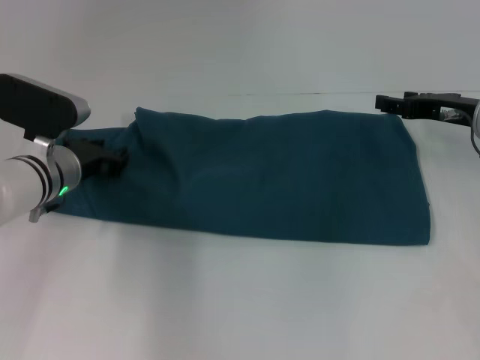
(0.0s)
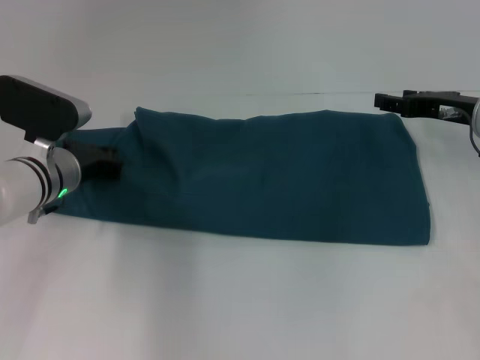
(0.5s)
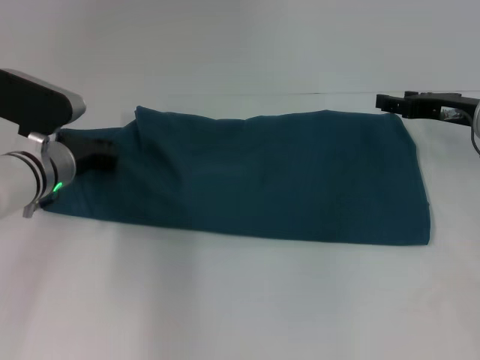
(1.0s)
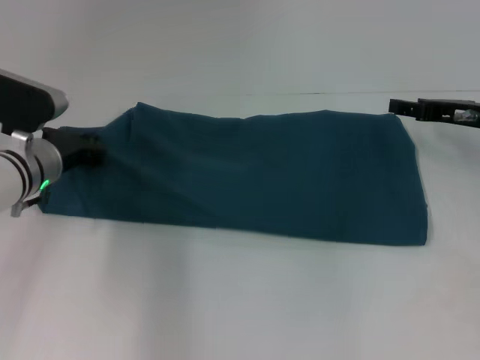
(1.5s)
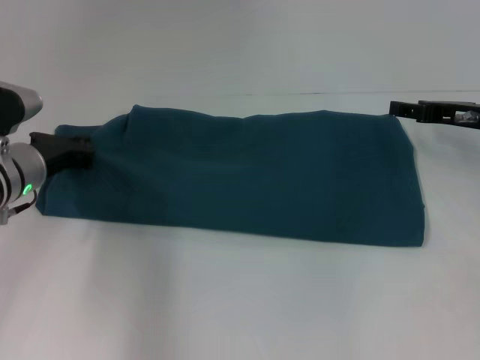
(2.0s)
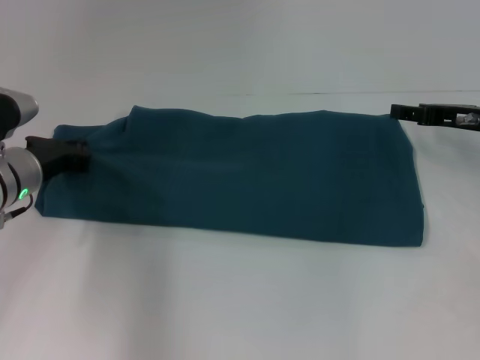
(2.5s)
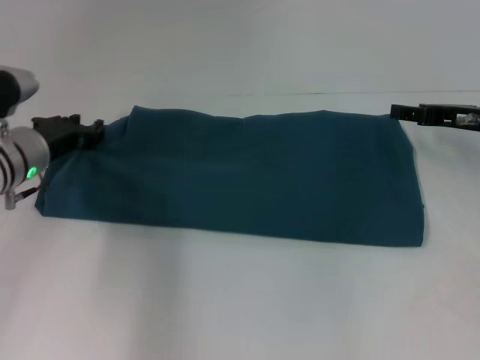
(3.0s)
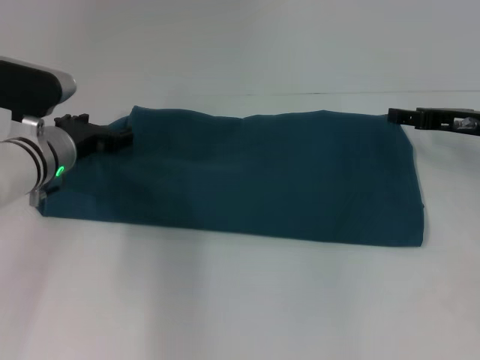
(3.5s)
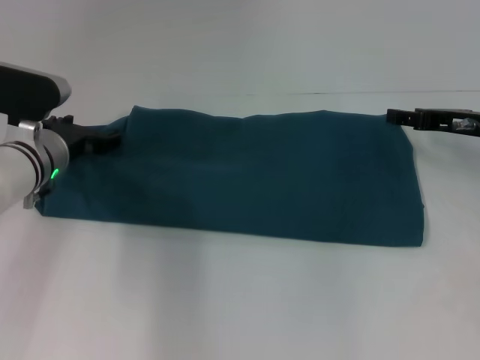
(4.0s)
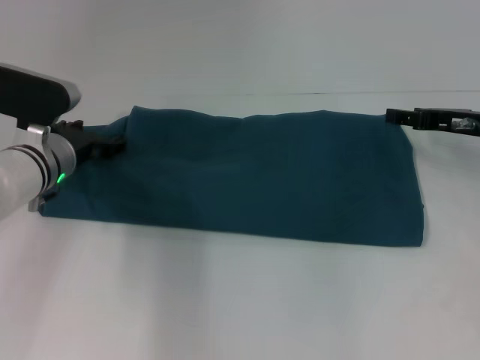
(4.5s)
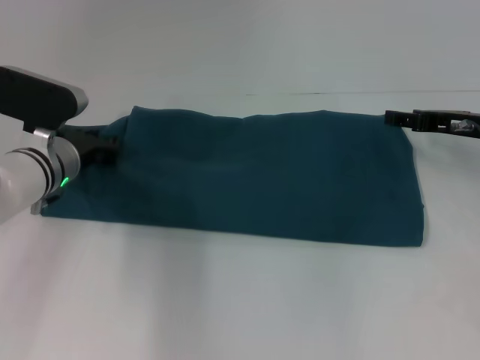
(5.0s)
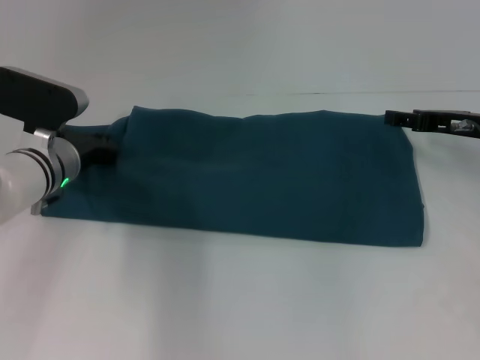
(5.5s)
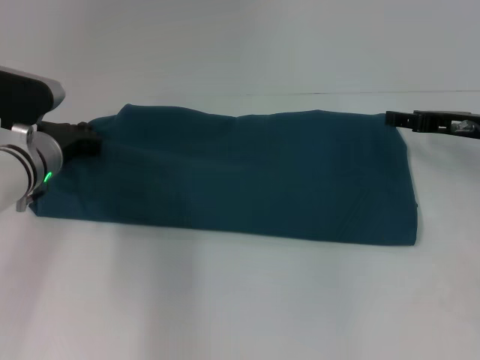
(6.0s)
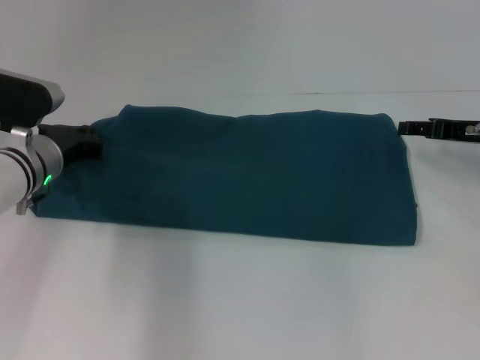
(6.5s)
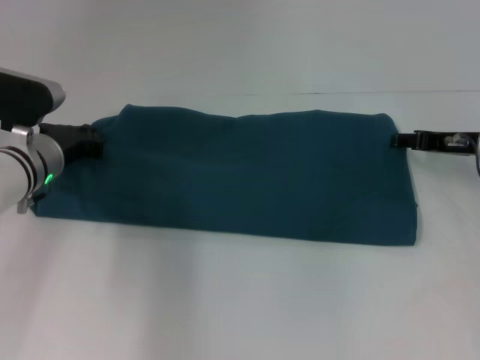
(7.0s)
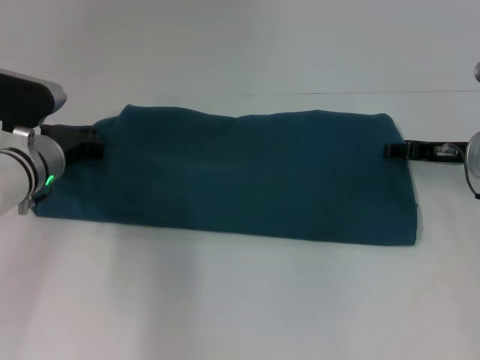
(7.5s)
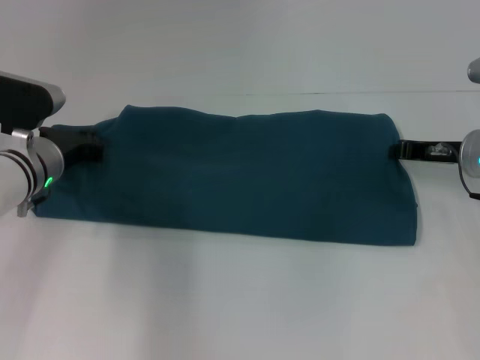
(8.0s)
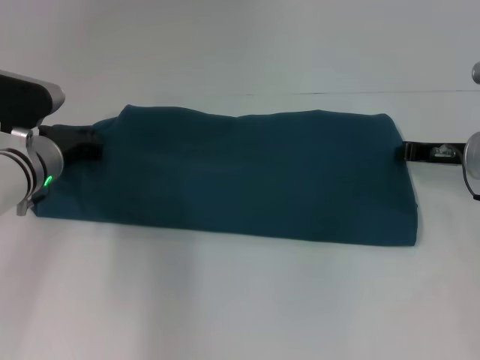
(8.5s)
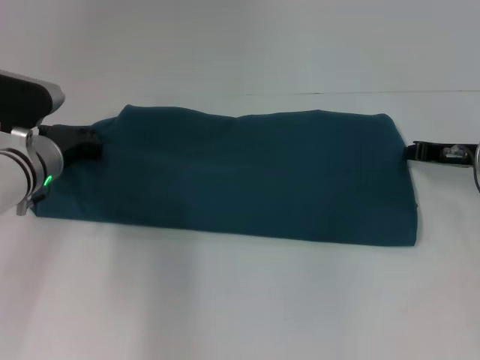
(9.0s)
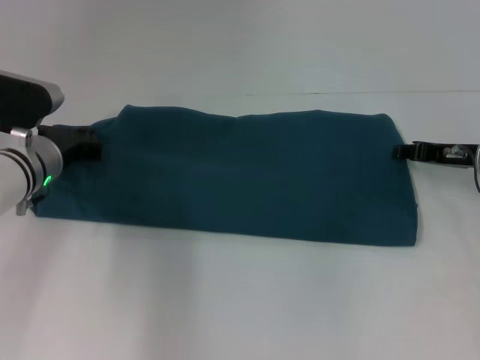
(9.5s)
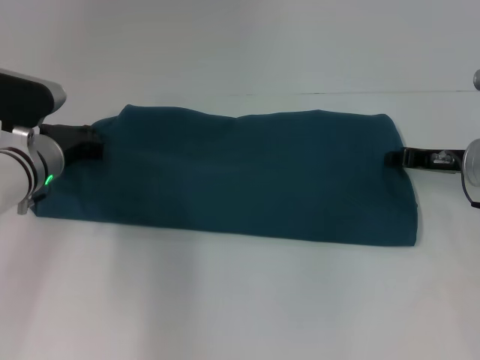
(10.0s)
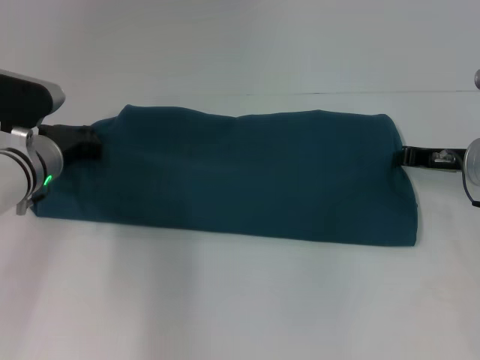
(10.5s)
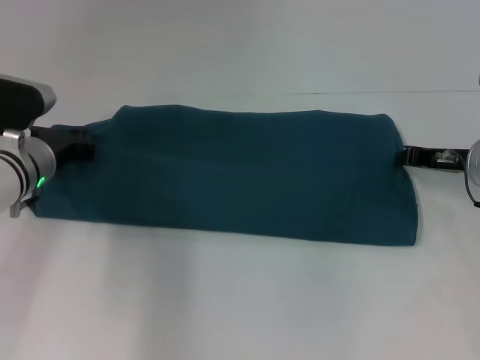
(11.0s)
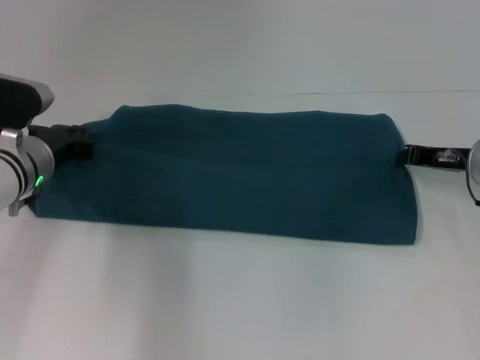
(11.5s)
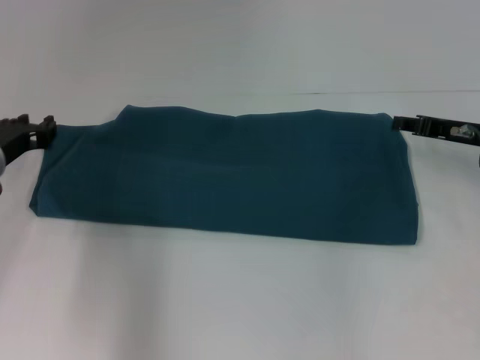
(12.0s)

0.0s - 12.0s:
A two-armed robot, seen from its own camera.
0.0s - 2.0s: The left gripper closes up.
2.0s - 4.0s: The left gripper opens its fingers.
4.0s - 6.0s: The left gripper closes.
6.0s - 8.0s: The right gripper closes its fingers.
8.0s - 10.0s: There are only small adjustments of the grippers.
10.0s - 12.0s: The left gripper moves approximately 5 cm.

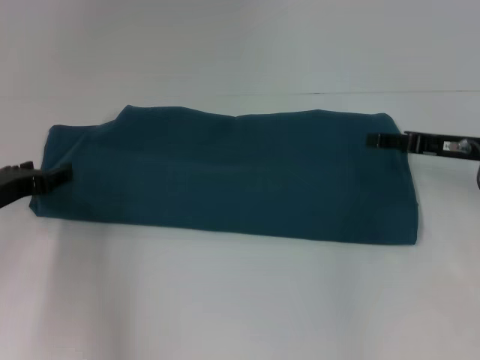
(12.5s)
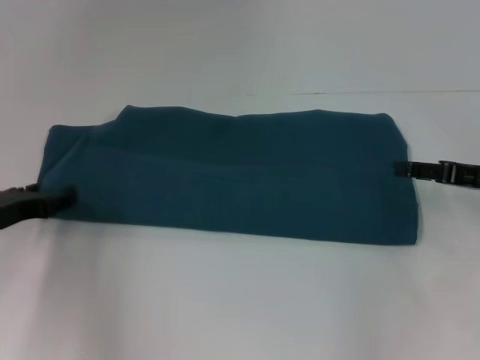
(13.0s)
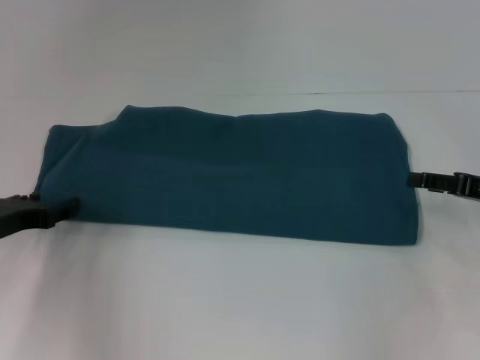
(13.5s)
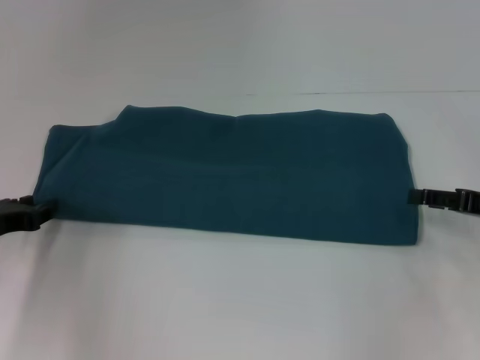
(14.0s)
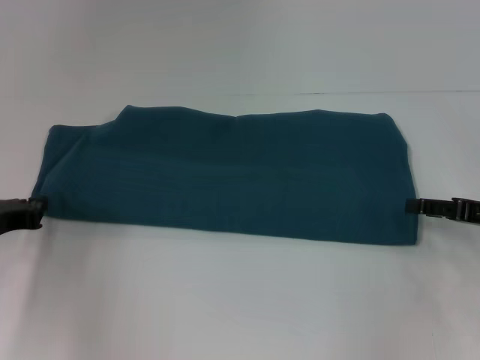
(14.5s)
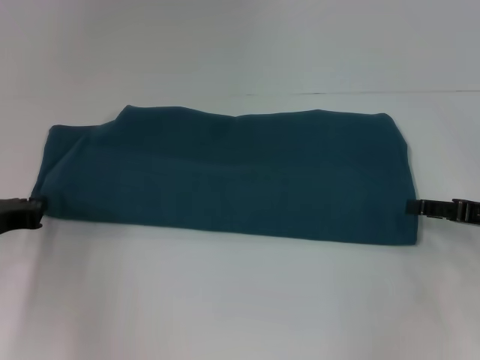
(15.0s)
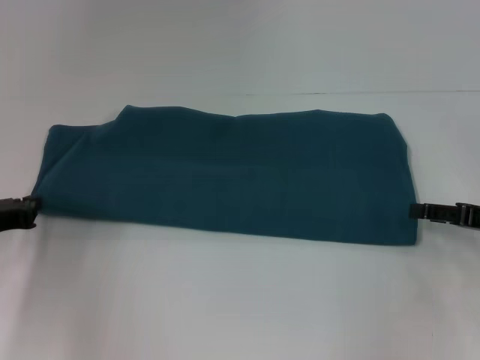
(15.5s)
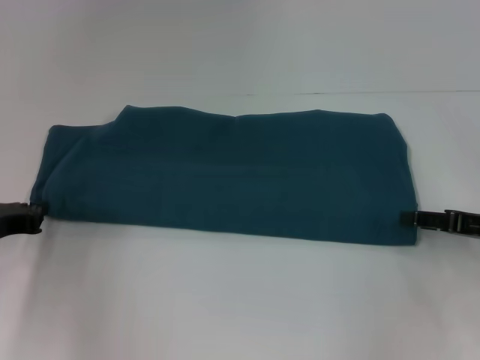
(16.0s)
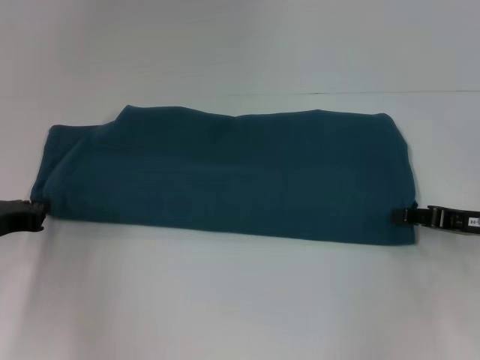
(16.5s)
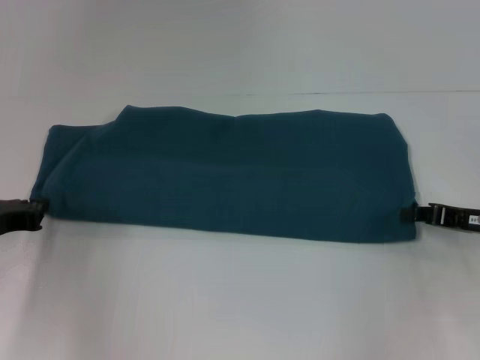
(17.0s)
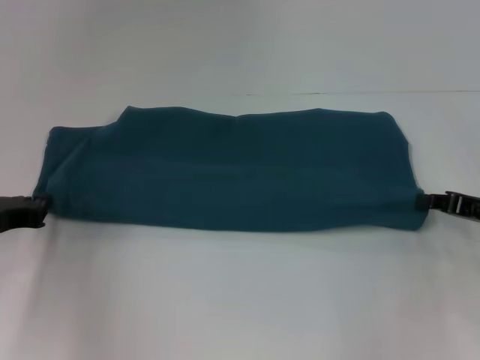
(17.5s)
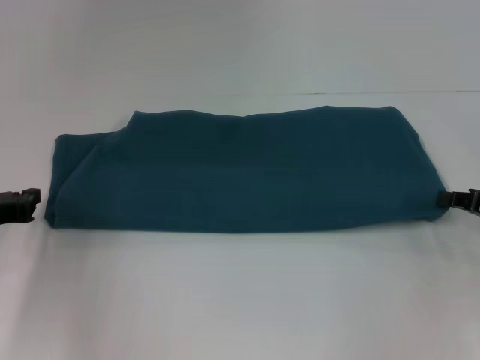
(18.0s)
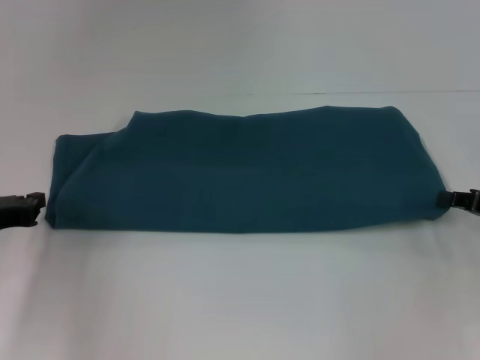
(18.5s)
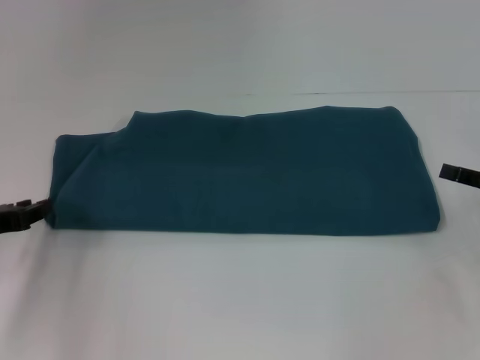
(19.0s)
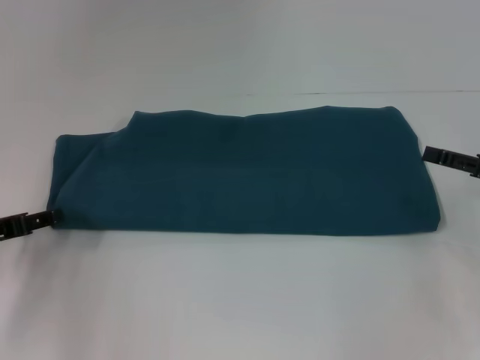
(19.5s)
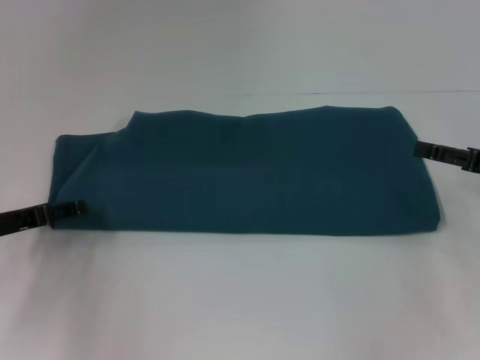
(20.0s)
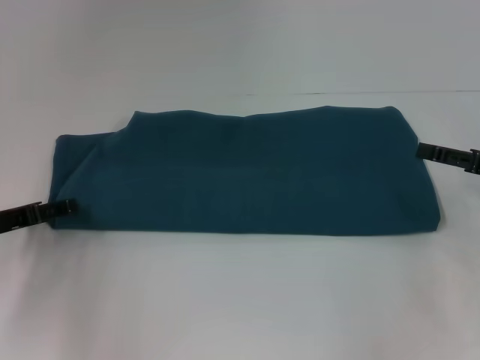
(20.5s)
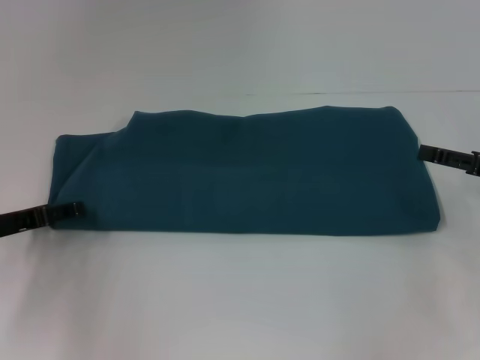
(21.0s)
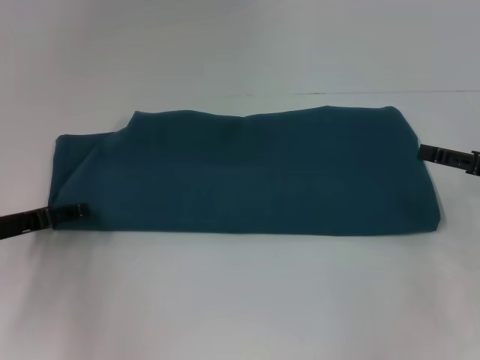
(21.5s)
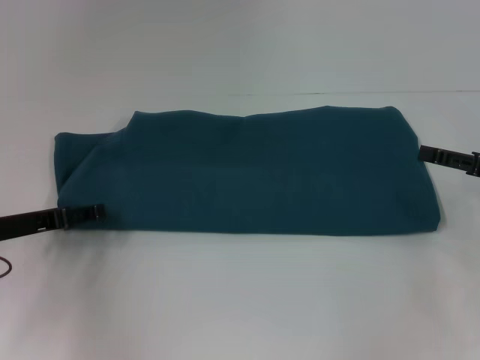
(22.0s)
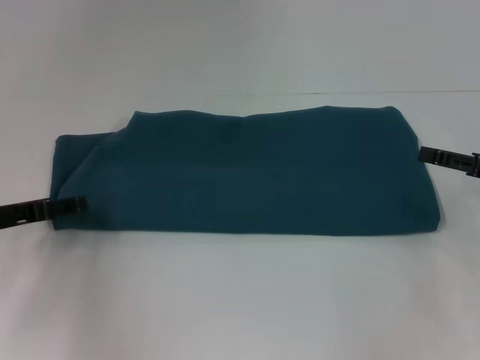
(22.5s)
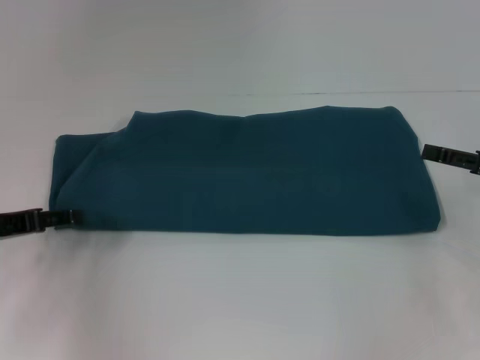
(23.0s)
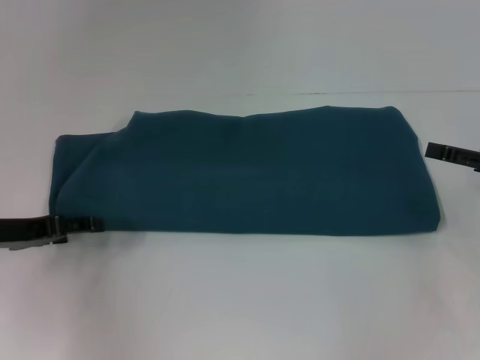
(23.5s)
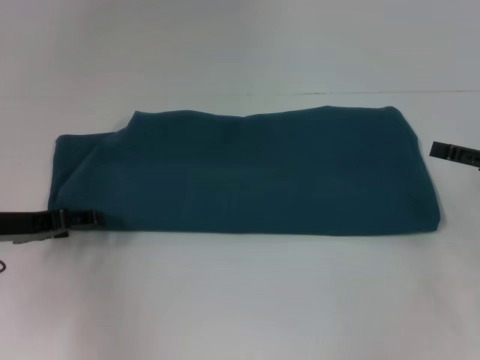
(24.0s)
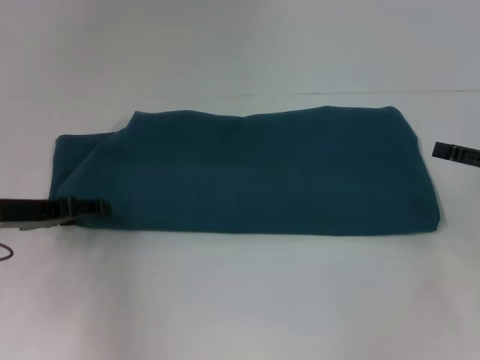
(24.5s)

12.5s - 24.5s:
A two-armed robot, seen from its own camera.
12.5s - 14.5s: The left gripper closes up. The right gripper moves backward and to the right, roughly 10 cm.
14.5s - 16.5s: The grippers stay close to where they were, moving slightly.
16.5s - 18.5s: The right gripper closes up.
18.5s - 20.5s: The left gripper opens its fingers; the right gripper opens.
20.5s - 24.5s: The grippers stay close to where they were, moving slightly.

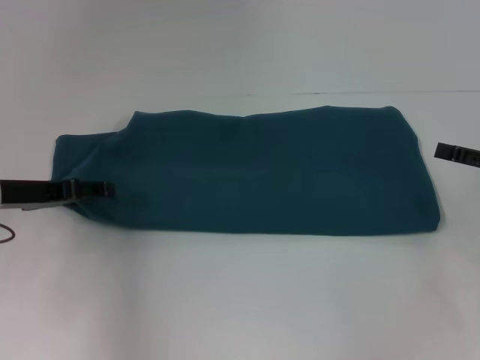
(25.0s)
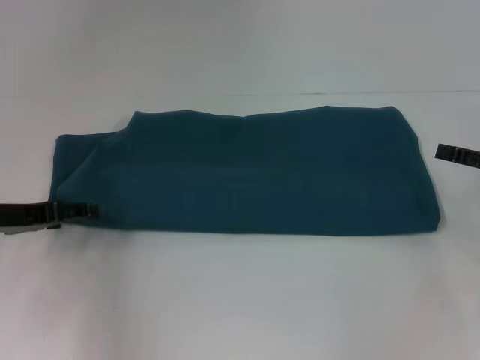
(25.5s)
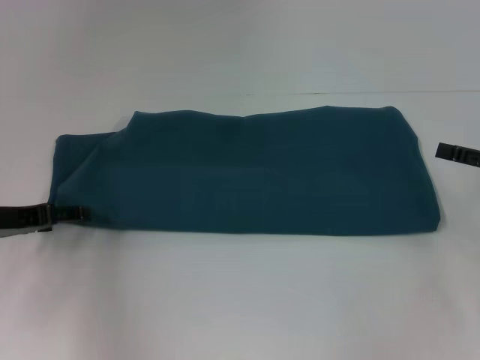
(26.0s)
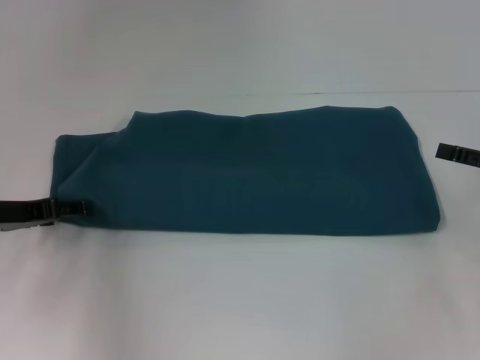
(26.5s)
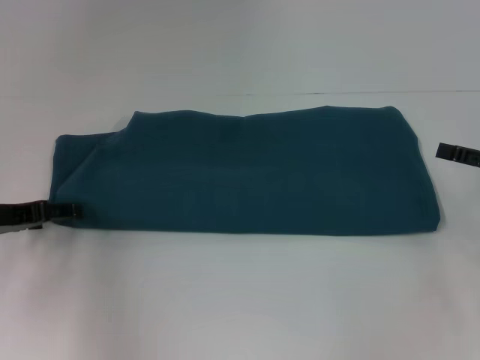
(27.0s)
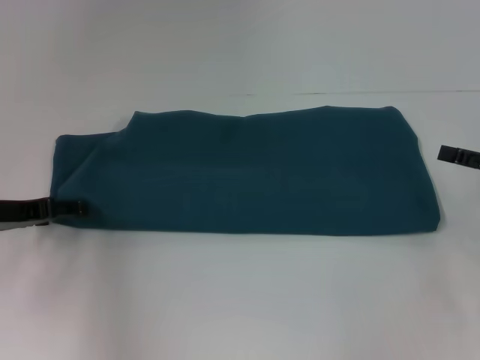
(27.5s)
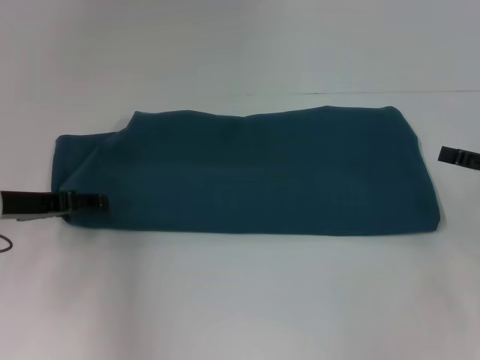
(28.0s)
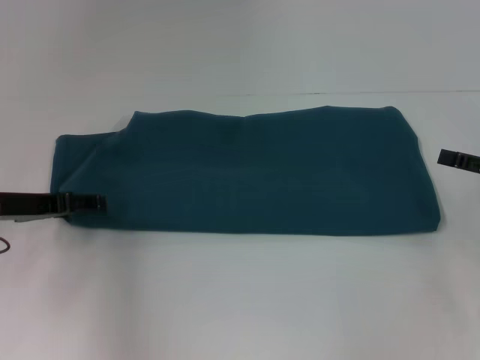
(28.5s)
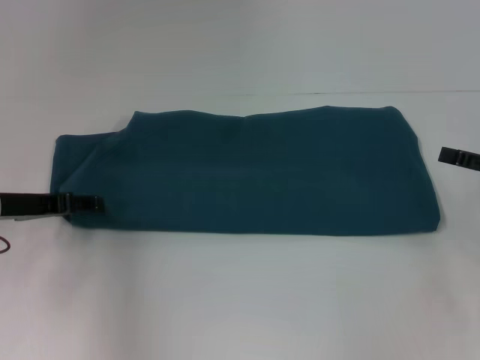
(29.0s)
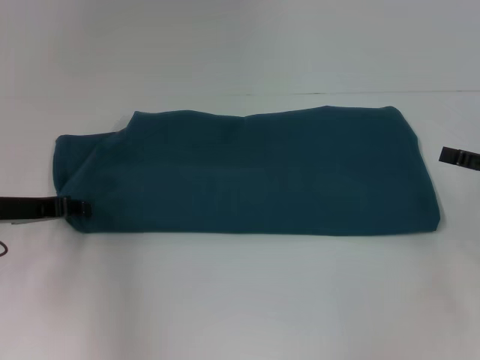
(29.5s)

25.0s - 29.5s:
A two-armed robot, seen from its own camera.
25.0s - 27.0s: The grippers make only small movements.
27.0s - 29.5s: The left gripper closes up.
